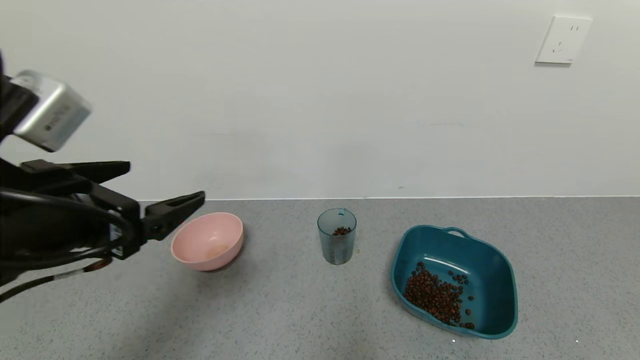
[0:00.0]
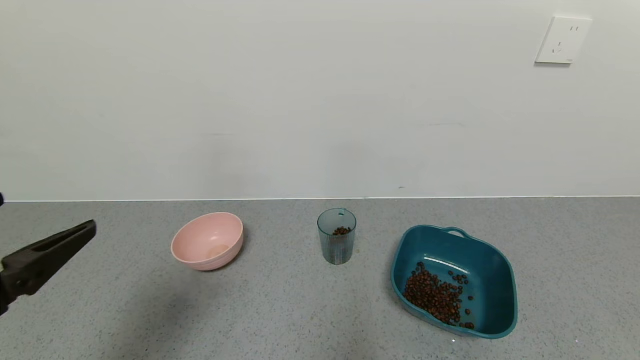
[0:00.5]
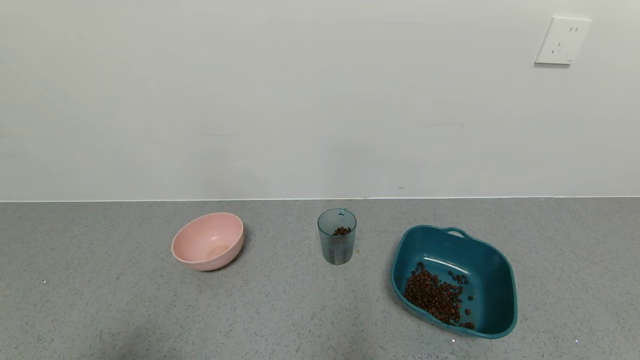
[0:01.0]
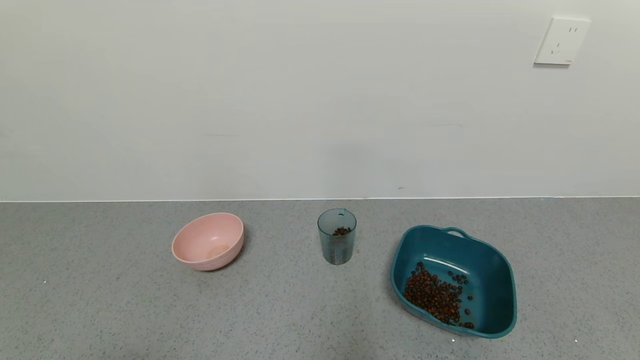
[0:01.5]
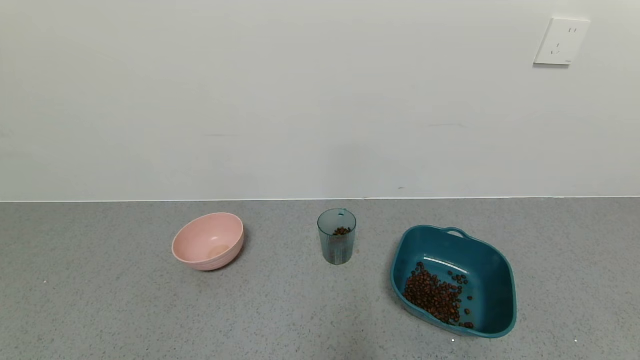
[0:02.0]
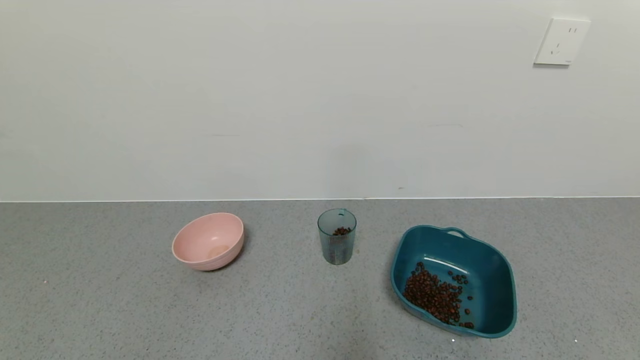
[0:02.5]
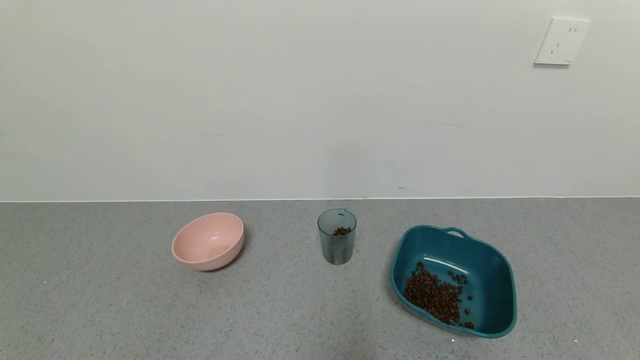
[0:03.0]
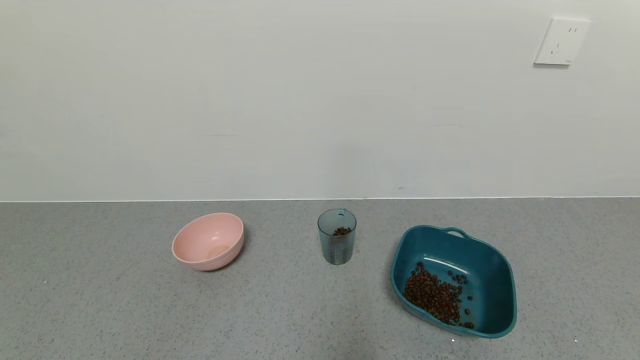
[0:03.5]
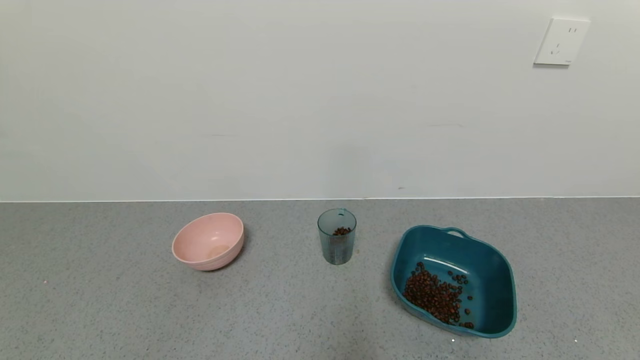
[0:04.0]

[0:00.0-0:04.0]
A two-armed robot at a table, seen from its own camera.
Task of the whole recording: use a gripper to pick up the cup and pour the solid into a bowl or tray.
0:00.0 to 0:02.0: The left gripper moves backward and downward, approximately 20 cm.

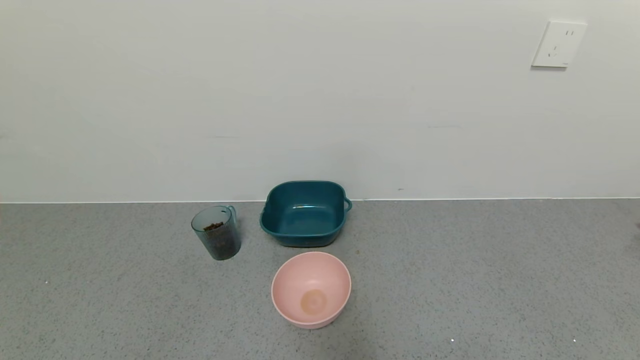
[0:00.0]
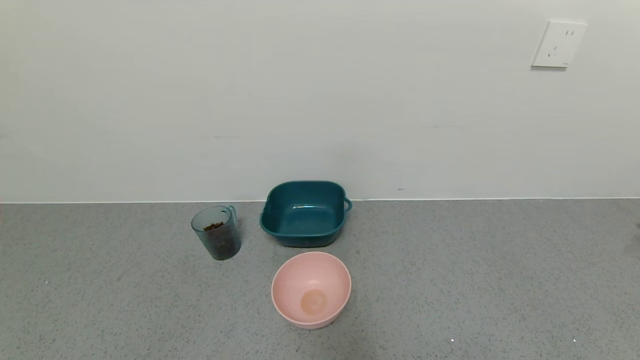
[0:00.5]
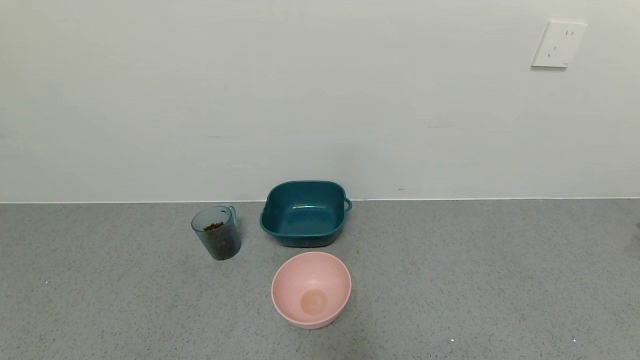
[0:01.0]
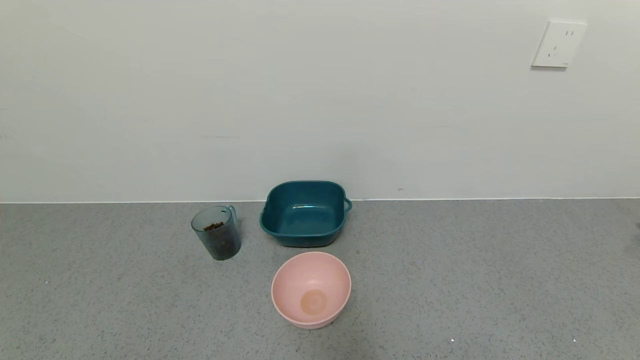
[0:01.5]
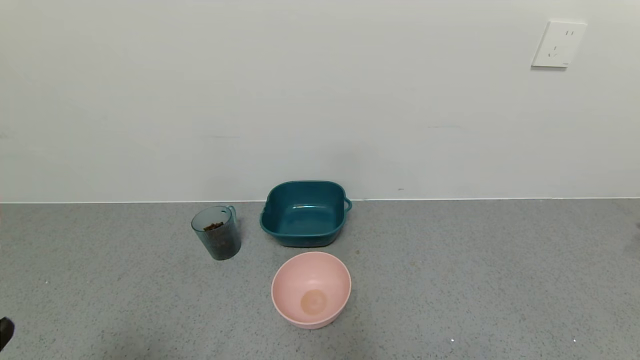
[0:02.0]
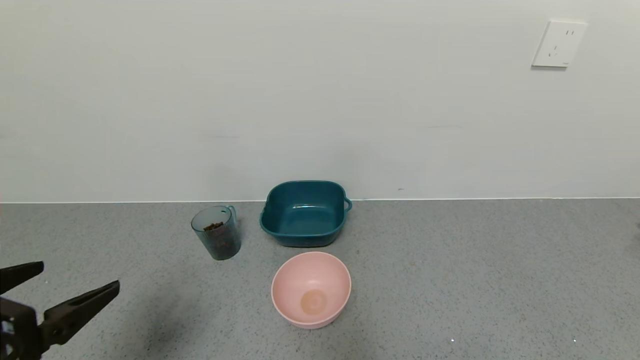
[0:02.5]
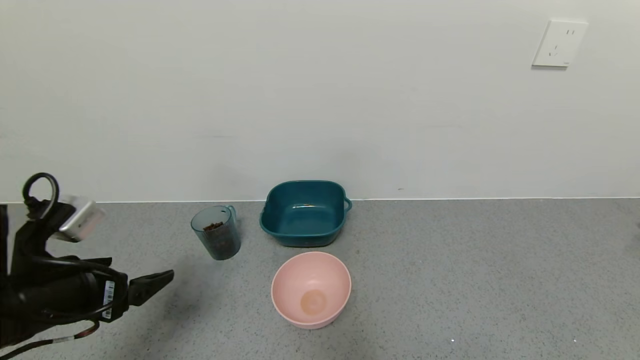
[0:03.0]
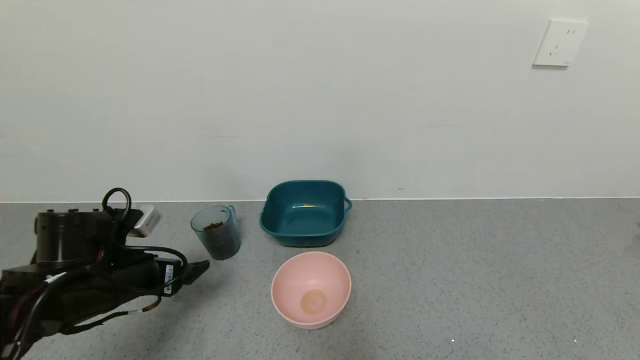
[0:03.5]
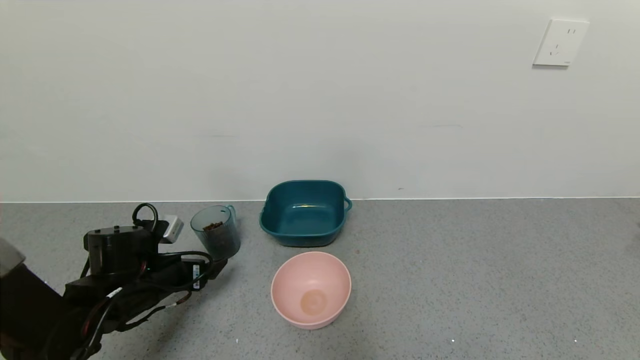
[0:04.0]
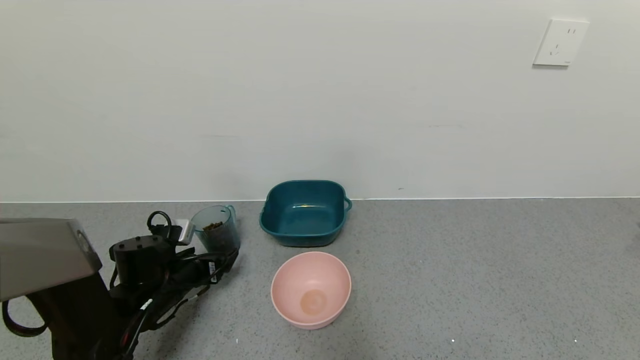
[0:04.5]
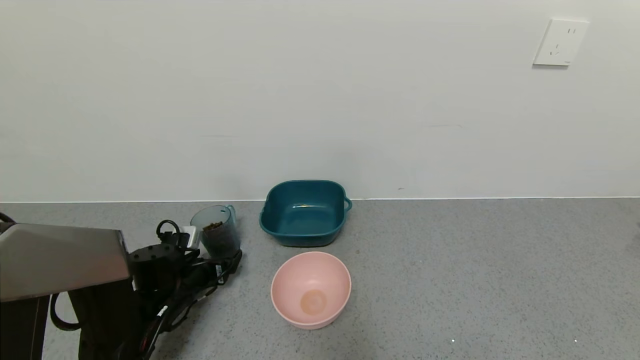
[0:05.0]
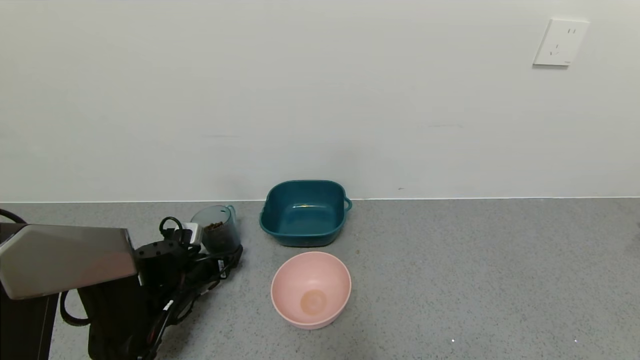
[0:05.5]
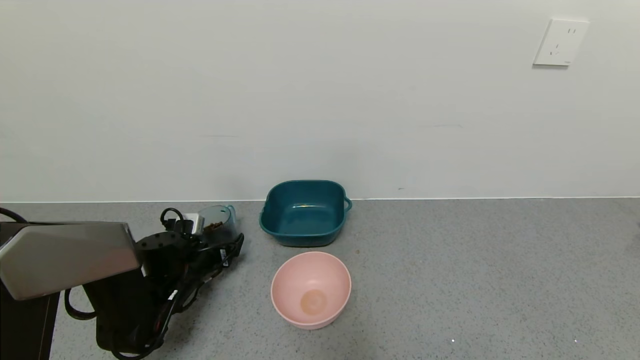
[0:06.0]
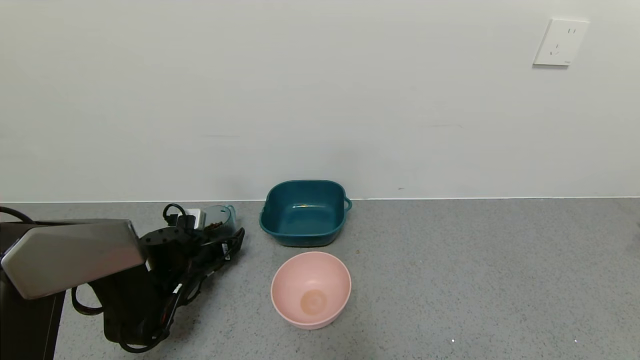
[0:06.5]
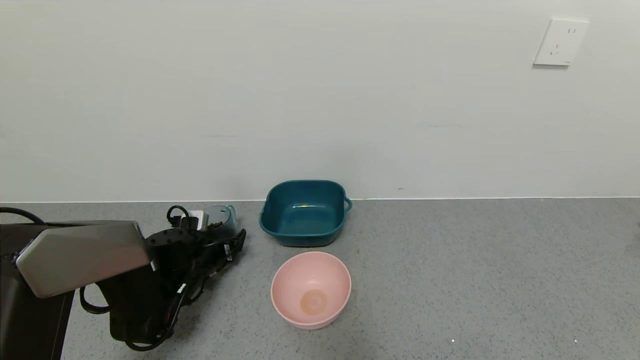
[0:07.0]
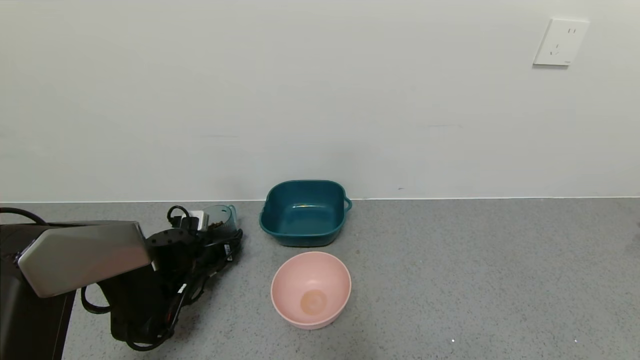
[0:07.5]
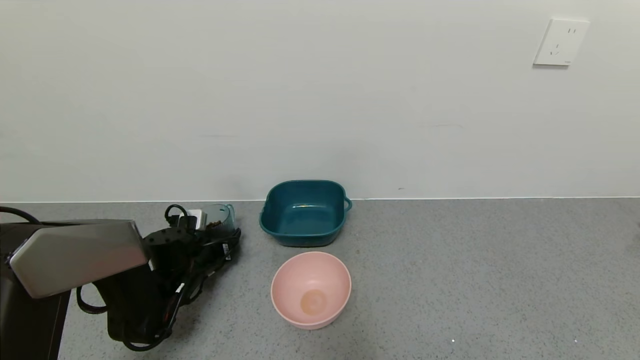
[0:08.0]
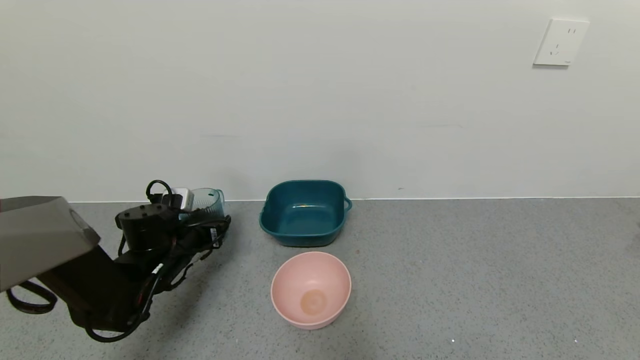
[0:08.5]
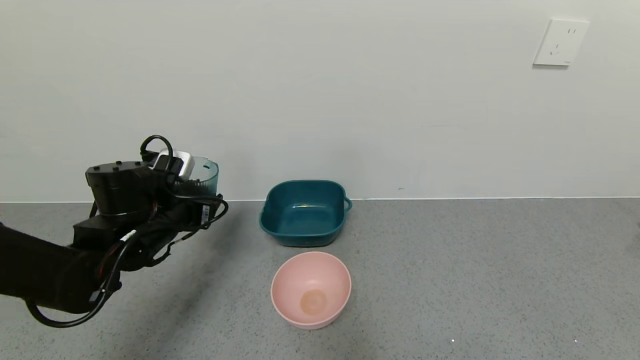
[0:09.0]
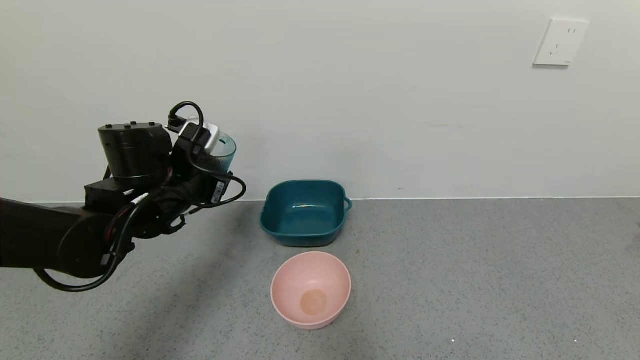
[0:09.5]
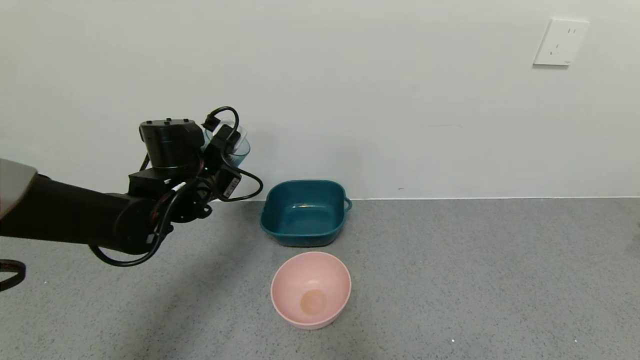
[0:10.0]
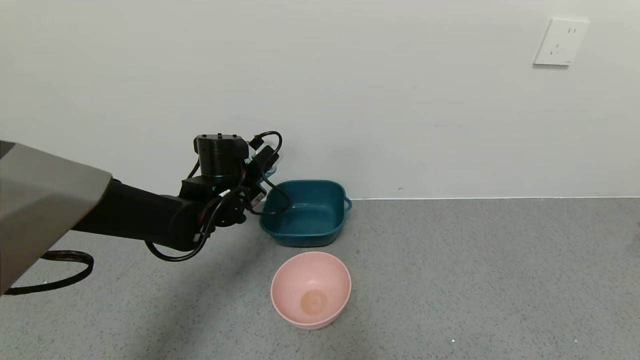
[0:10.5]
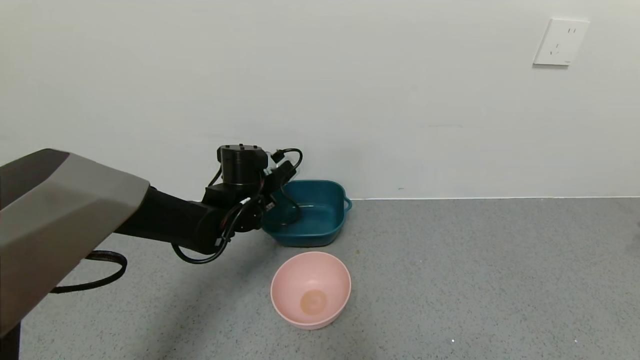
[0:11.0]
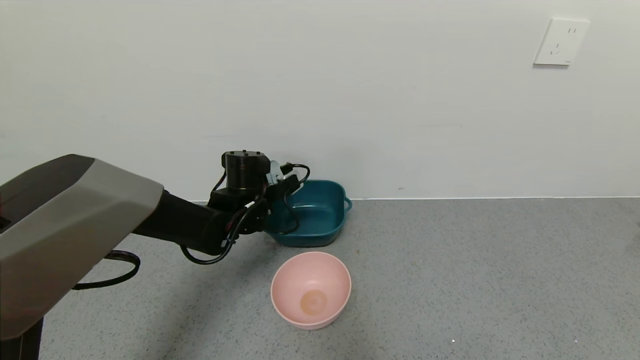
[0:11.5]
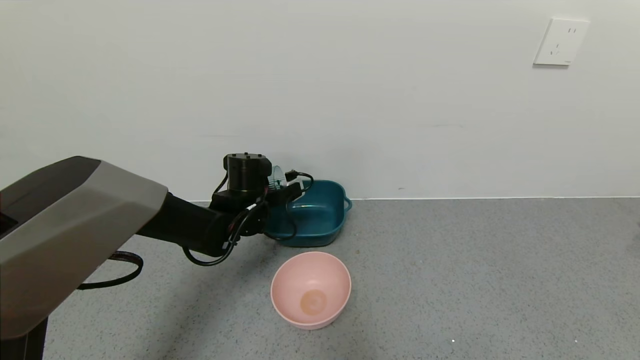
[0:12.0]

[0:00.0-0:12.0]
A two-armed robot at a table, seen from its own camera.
Task of the whole recording: use a gripper to pick up the cup and pour the solid into a bowl or tray.
Step, 0:00.0 to 0:07.0: Grasp the glass of coffee beans with the left gripper.
0:02.0 to 0:04.0: The left gripper travels forward and downward by roughly 30 cm.
0:04.0 to 0:06.0: The left gripper goes approximately 10 cm forward and downward.
0:06.0 to 0:08.0: The left gripper closes.
0:08.0 to 0:10.0: The left gripper goes roughly 20 cm upward.
0:10.0 to 0:12.0: The left gripper is displaced downward and to the right by about 10 cm.

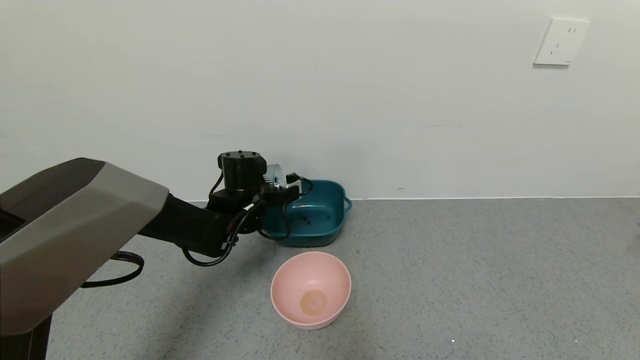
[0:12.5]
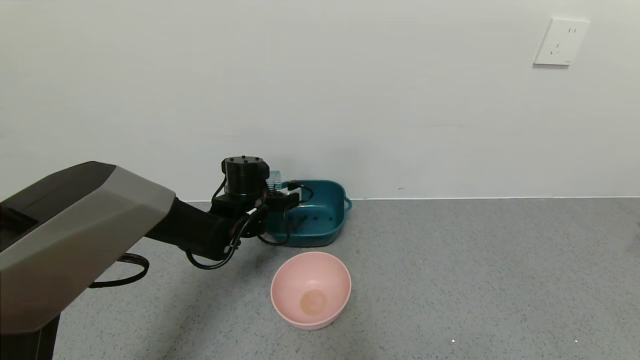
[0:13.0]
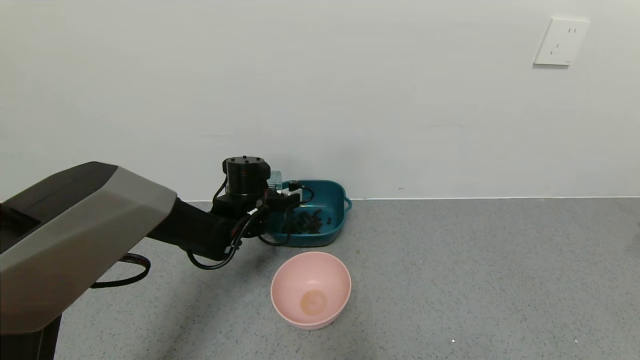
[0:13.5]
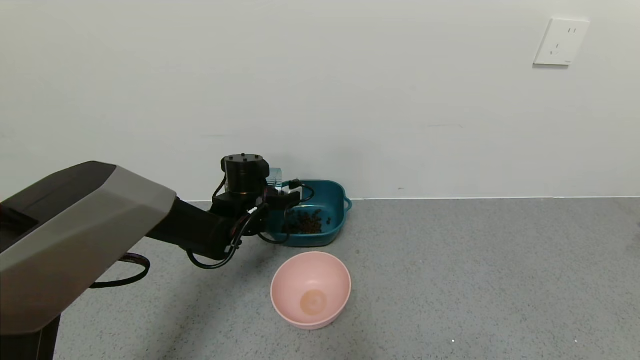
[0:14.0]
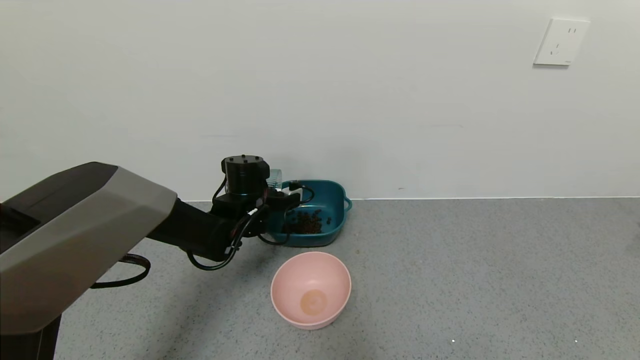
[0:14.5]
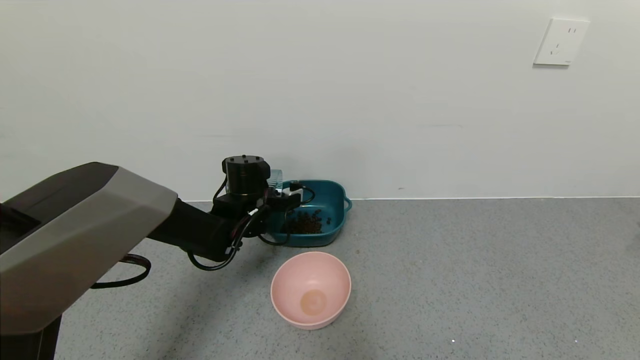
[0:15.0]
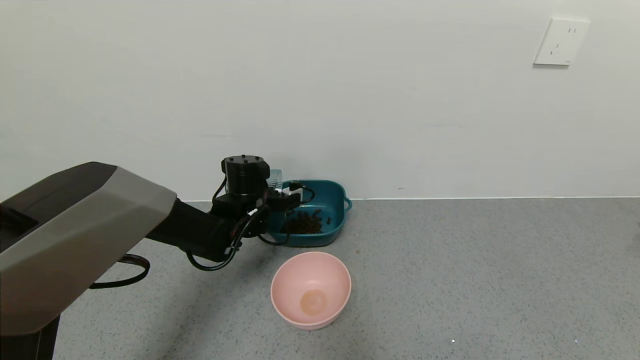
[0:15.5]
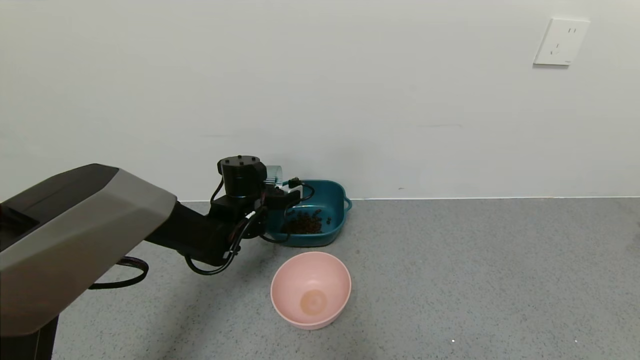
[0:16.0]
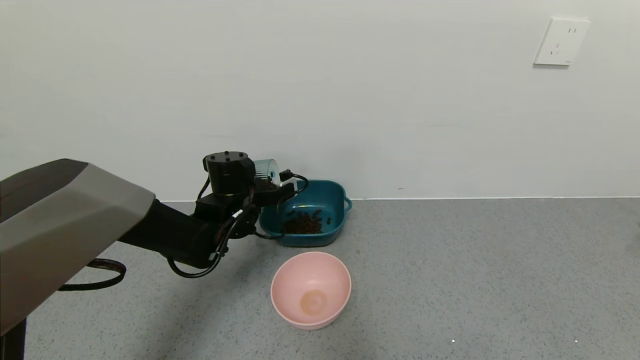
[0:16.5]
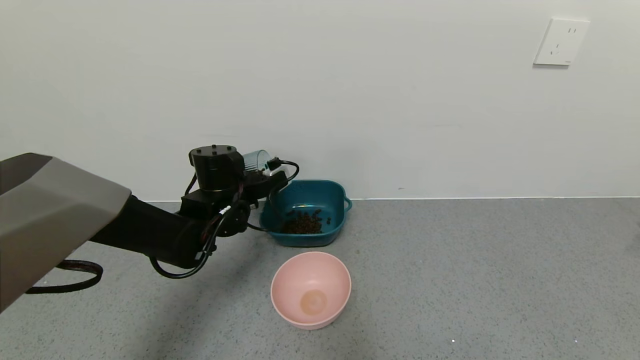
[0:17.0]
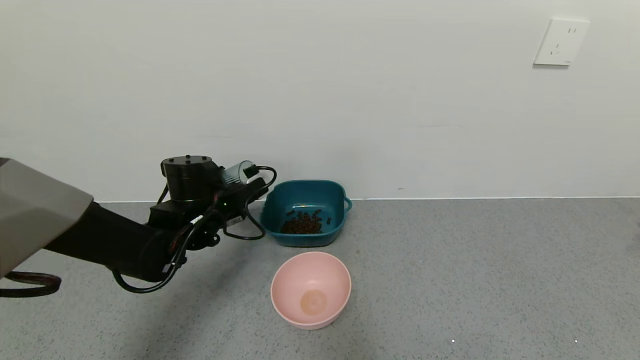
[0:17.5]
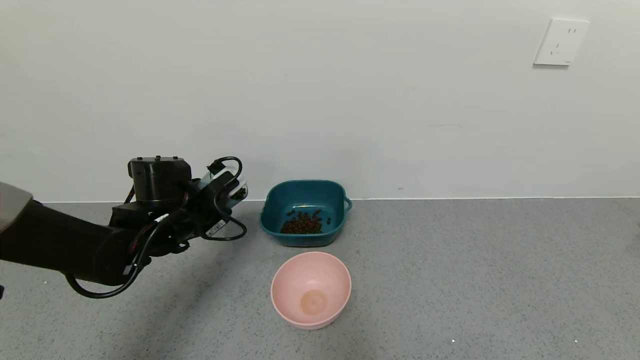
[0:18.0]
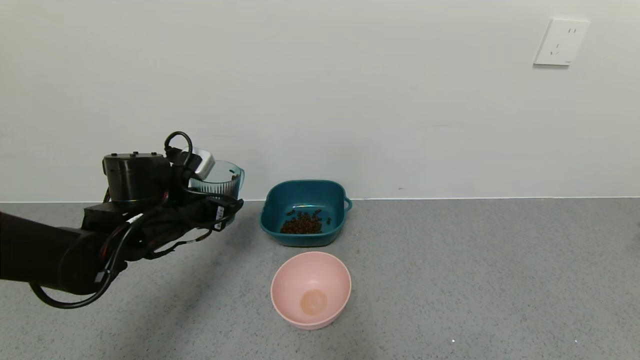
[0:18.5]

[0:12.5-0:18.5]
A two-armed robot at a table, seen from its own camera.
Task of the whole recording: use a gripper to pick up the cup and pour the solid into a bowl or tray.
Step, 0:12.5 to 0:16.5: Pour the coffee beans into the green bowl with the left gripper.
0:12.5 to 0:16.5: The grippers move only a little.
0:16.5 to 0:18.5: The left gripper travels to the left and backward by approximately 10 cm.
